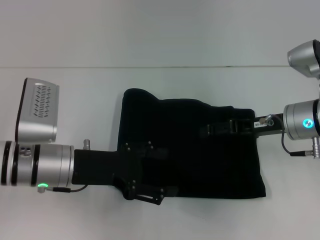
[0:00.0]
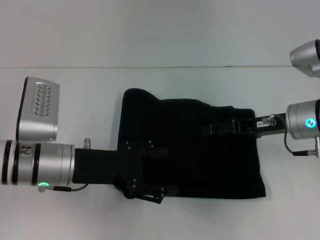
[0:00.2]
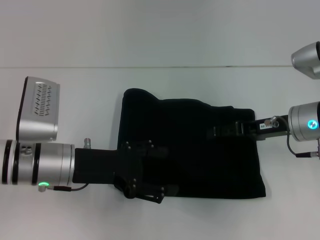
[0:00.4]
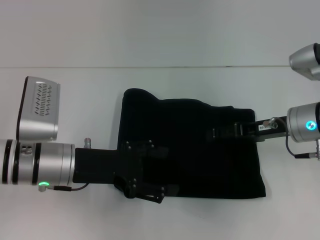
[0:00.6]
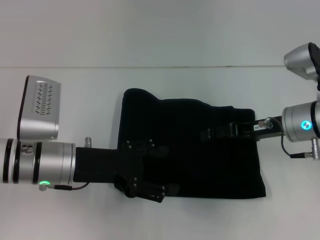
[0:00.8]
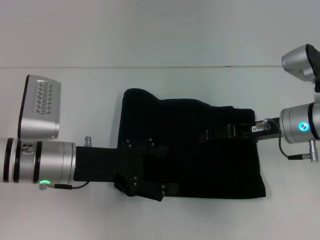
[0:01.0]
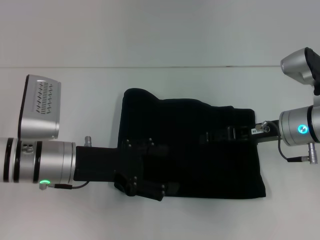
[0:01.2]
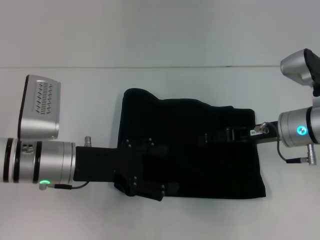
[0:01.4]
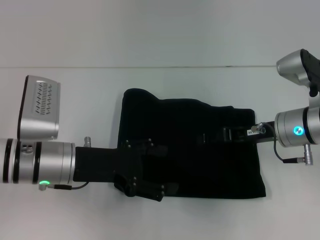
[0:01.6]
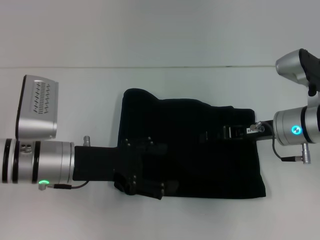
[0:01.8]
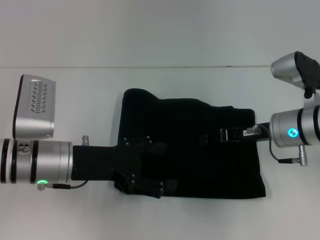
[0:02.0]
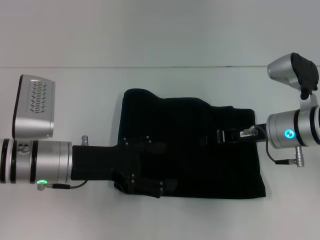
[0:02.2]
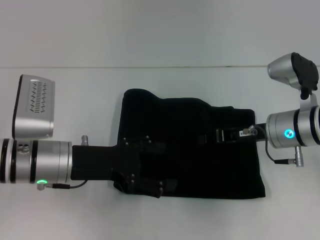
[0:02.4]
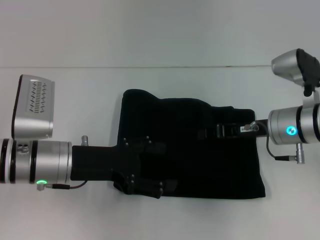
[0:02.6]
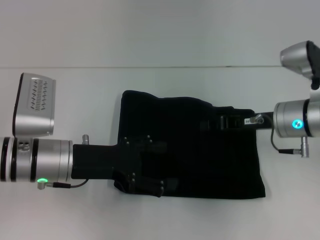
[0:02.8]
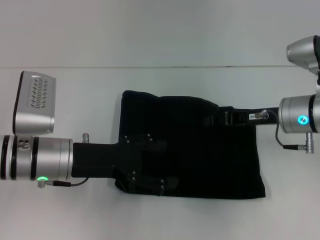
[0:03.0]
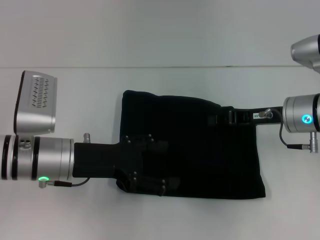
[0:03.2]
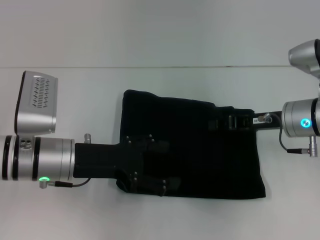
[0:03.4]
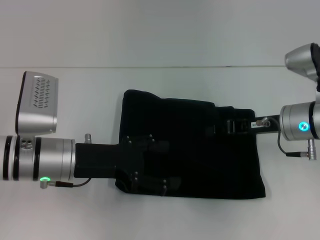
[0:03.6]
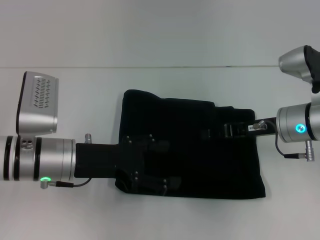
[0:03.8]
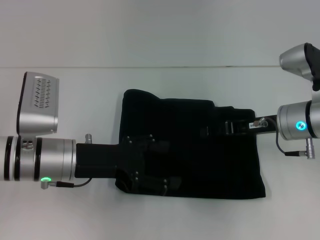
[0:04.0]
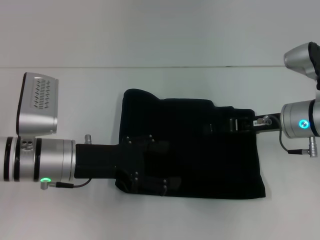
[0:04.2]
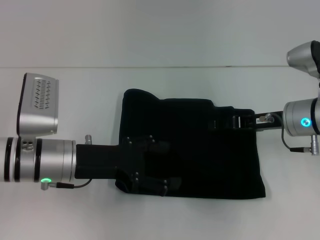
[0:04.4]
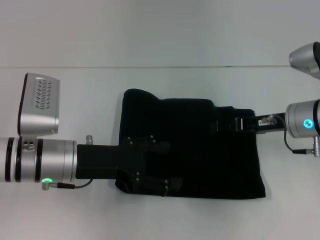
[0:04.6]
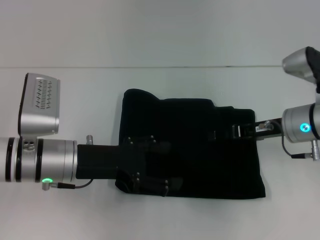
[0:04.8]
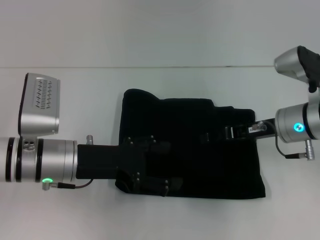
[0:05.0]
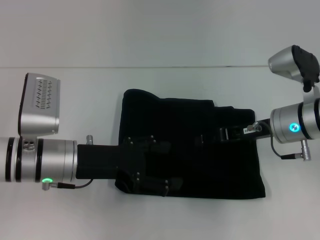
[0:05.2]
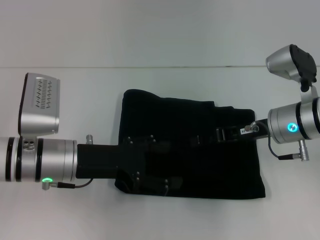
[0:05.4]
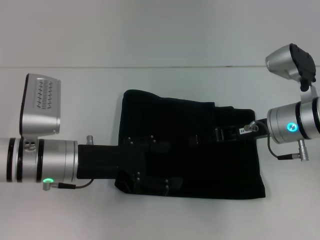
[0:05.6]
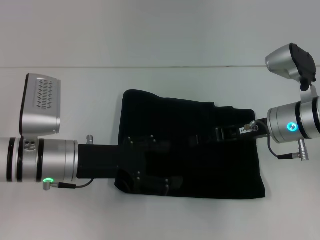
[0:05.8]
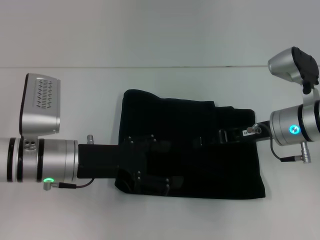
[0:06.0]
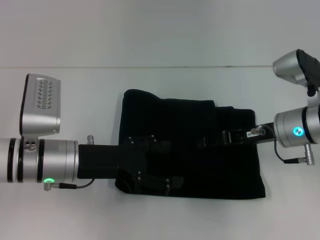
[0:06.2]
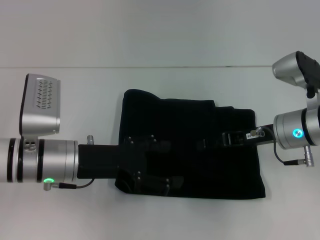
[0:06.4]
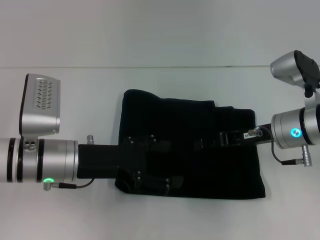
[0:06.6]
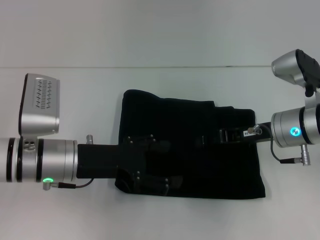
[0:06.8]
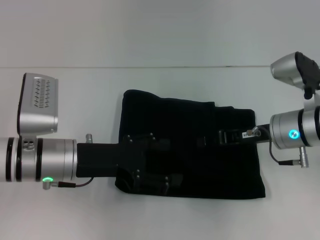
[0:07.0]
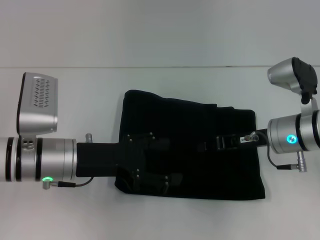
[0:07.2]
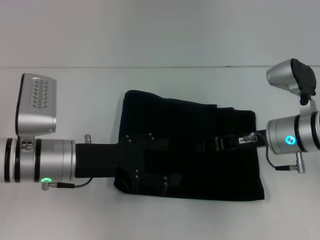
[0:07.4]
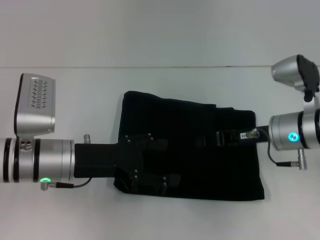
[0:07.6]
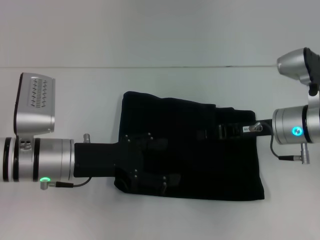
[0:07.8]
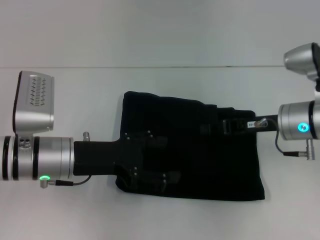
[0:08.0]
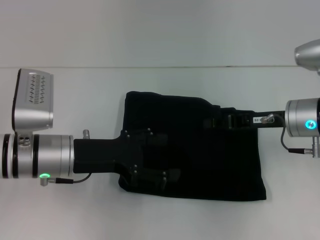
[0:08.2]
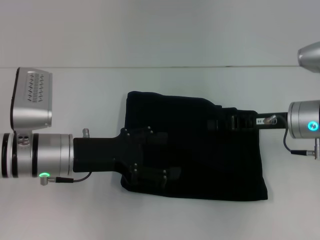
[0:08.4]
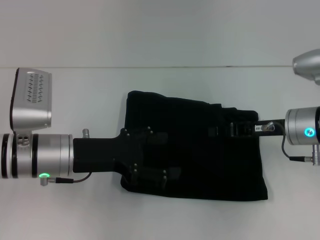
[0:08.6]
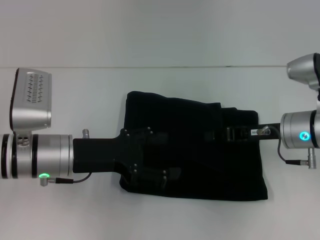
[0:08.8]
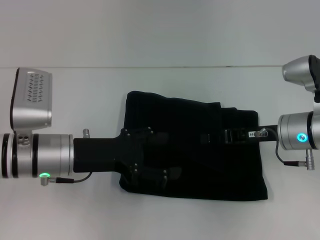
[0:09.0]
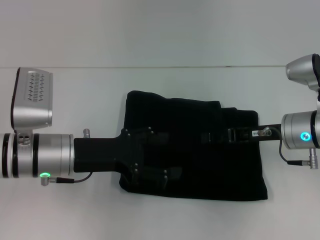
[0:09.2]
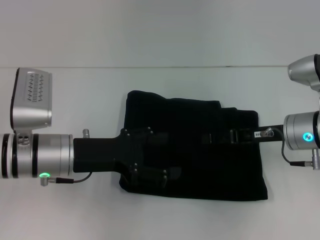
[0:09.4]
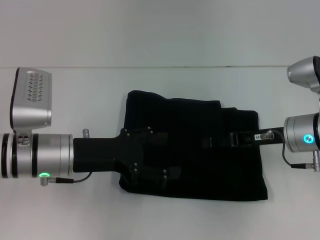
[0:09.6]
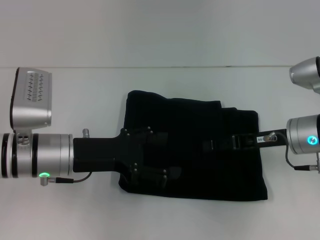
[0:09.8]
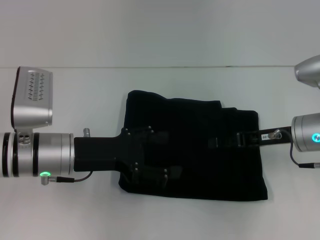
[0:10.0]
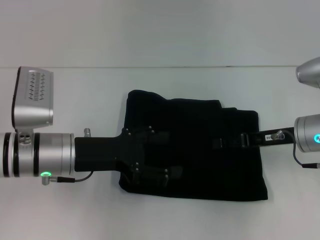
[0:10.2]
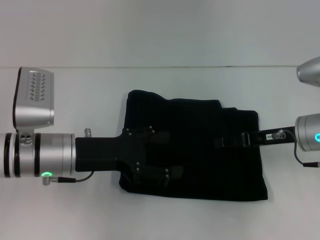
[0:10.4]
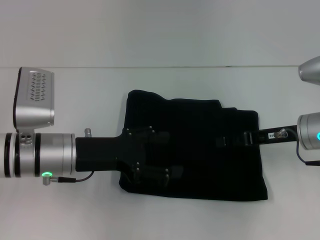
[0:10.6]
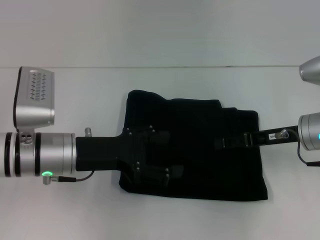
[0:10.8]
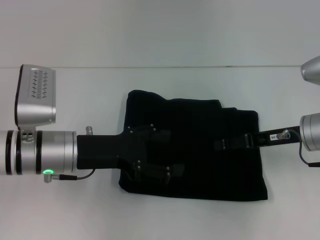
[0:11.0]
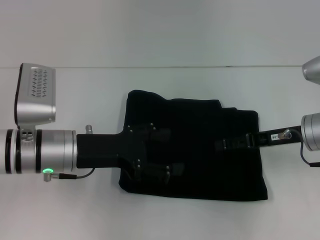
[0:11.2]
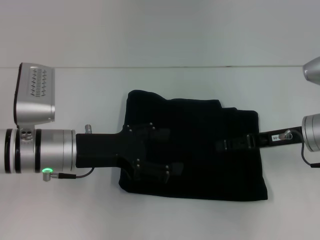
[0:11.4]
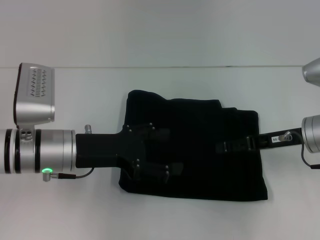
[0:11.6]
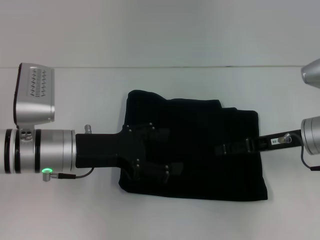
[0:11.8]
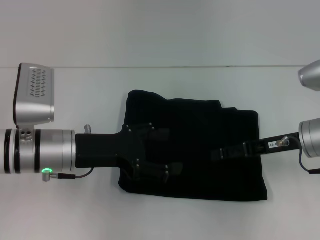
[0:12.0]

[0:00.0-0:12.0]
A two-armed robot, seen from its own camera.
0:00.0 to 0:01.6: The grippers stay close to where they were, moving slightly.
0:01.6 to 0:03.0: The right gripper closes up.
0:03.0 to 0:04.4: The right gripper opens up.
0:04.4 to 0:06.0: The grippers make only small movements.
0:06.0 to 0:07.6: The right gripper closes up.
0:07.6 to 0:09.0: The grippers stay close to where they were, moving slightly.
0:09.0 to 0:10.4: The right gripper opens.
0:10.4 to 0:12.0: There are only small adjustments of the grippers.

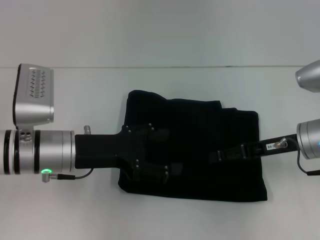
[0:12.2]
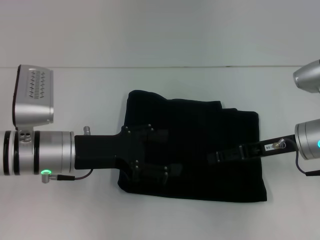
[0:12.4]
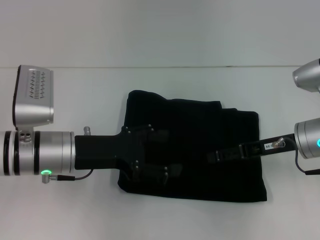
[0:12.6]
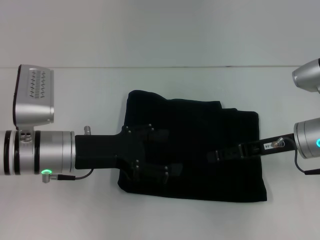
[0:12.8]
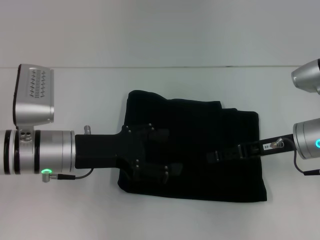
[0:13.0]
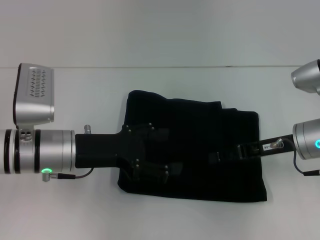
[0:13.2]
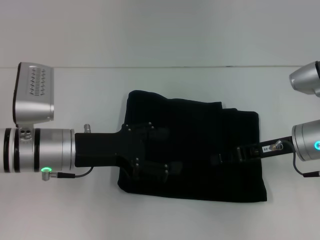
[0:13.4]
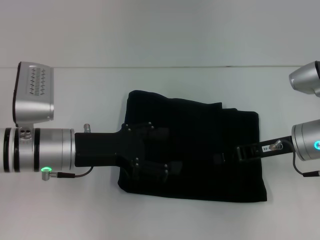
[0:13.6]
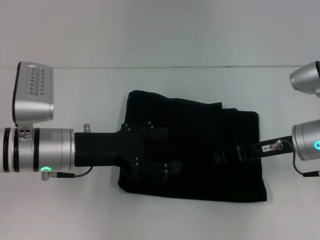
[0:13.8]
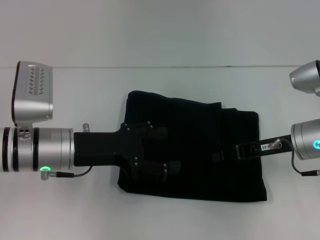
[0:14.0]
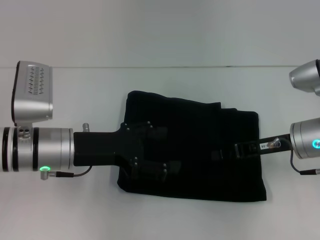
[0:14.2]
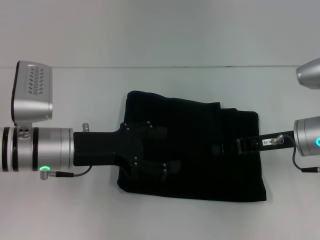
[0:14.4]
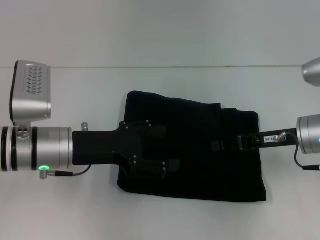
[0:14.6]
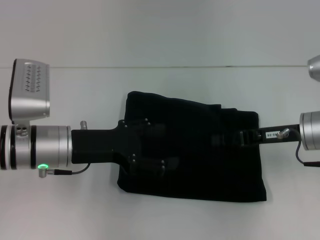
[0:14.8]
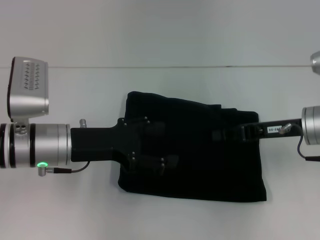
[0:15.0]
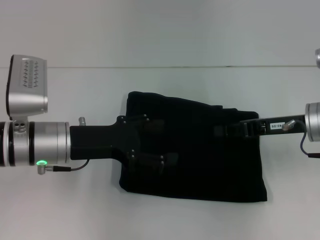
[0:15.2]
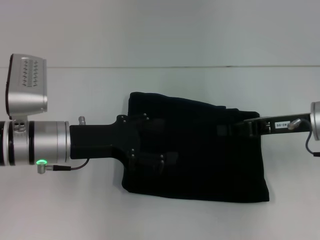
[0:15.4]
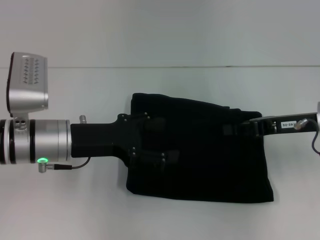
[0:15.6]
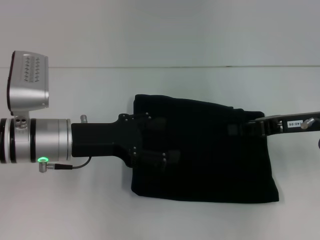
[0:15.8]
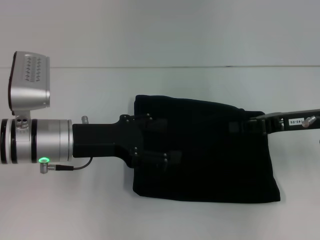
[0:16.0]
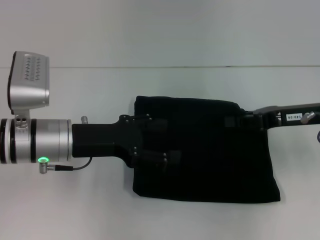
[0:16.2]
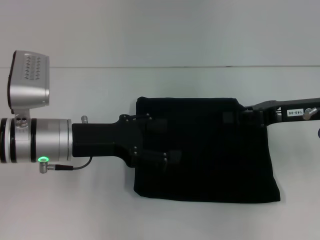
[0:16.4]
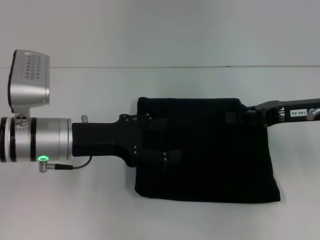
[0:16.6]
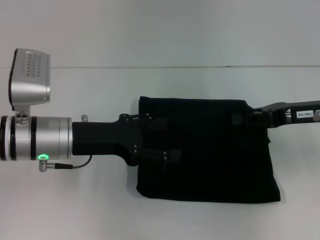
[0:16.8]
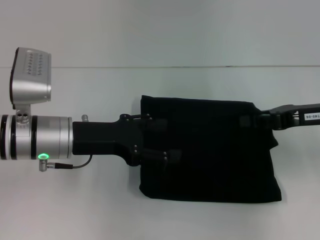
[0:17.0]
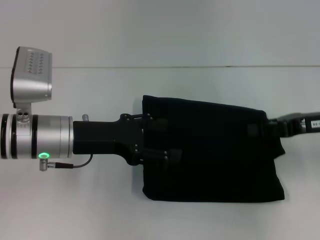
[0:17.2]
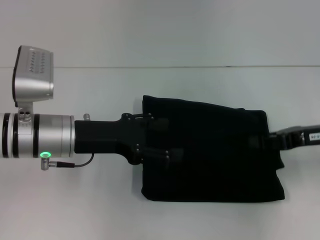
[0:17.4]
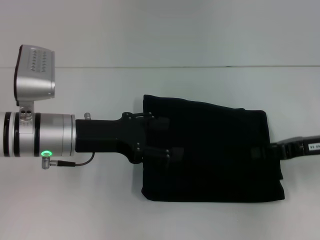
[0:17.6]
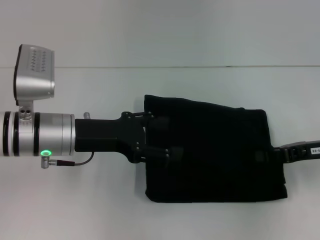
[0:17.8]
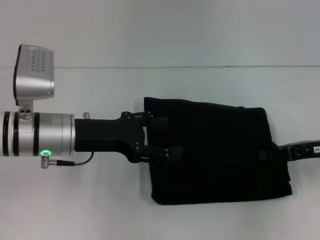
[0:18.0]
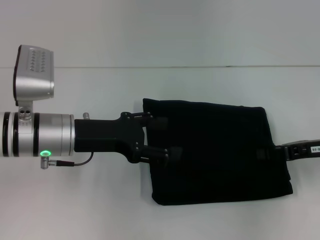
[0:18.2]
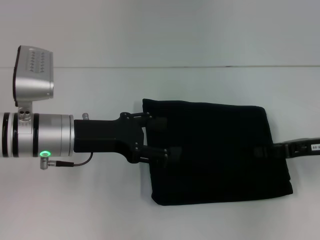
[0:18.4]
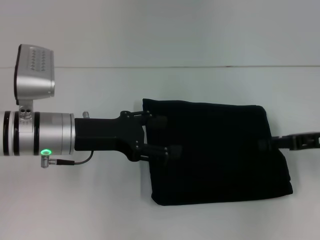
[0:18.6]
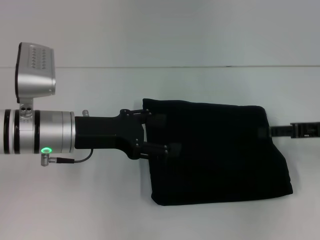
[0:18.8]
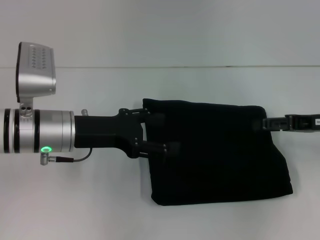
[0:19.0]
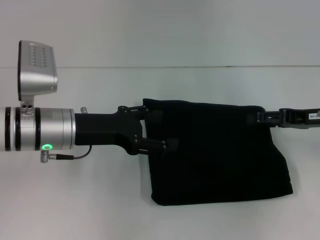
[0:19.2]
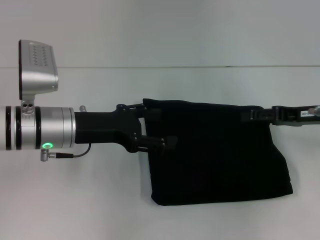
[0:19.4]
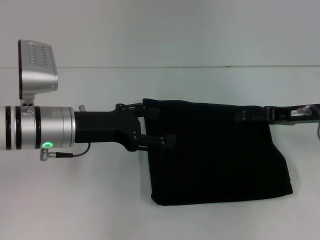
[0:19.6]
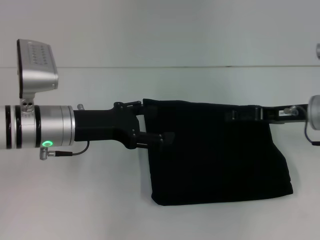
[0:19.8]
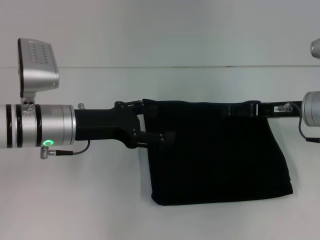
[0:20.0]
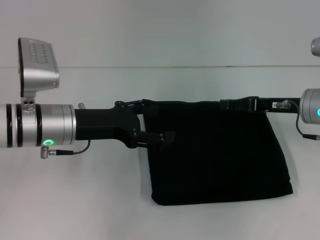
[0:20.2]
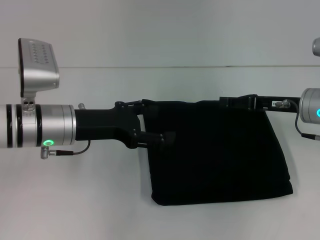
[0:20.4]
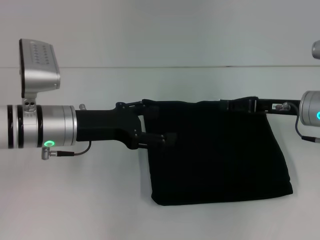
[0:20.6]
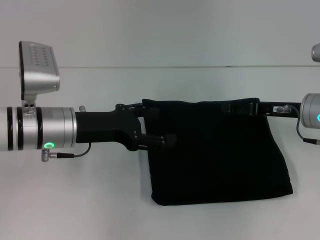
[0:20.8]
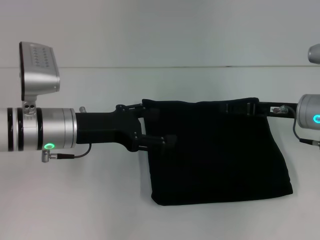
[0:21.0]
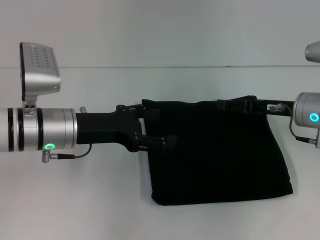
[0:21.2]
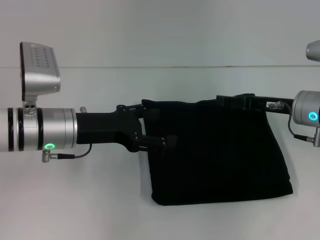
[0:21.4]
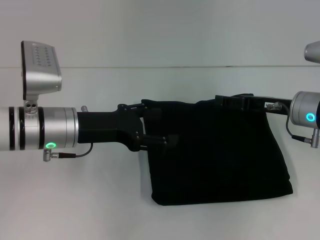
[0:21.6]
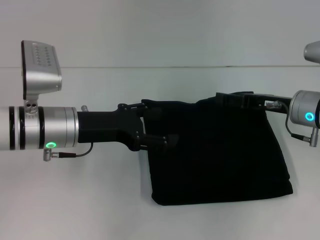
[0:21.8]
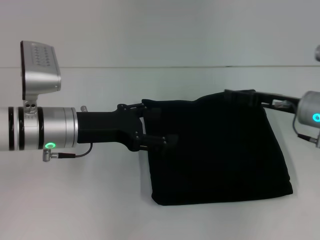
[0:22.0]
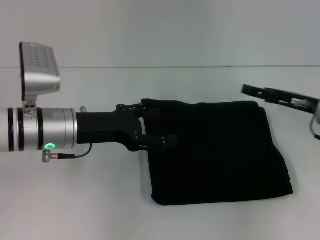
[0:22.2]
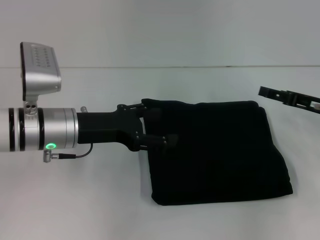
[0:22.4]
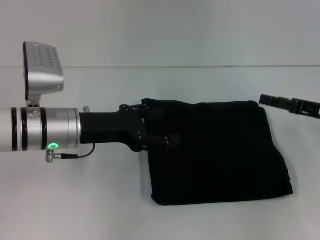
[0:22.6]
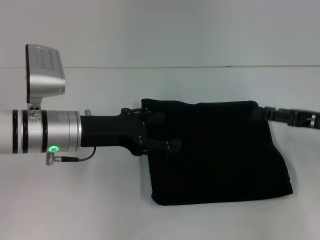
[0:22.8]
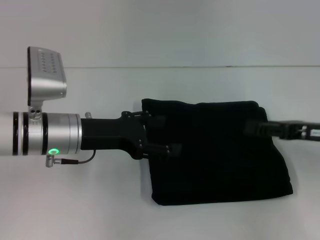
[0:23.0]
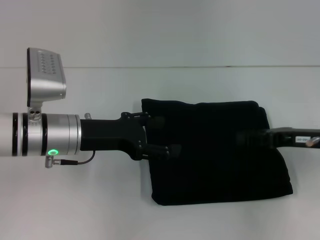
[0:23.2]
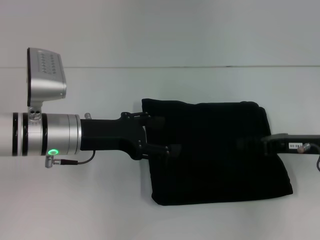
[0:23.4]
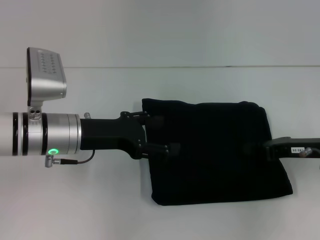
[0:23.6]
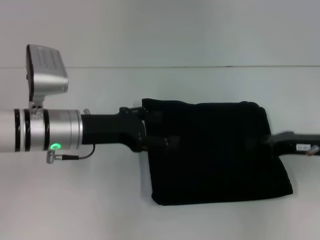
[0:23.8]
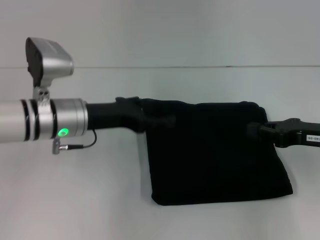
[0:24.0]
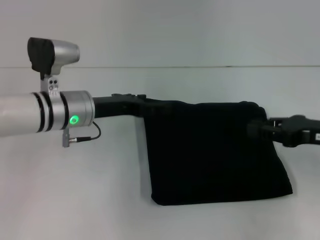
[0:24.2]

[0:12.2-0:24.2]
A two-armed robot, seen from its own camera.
0:12.2 to 0:13.8: The right gripper closes its fingers.
0:13.8 to 0:15.2: There are only small adjustments of the grippers.
0:15.2 to 0:16.6: There are only small adjustments of the grippers.
0:16.6 to 0:18.2: The right gripper is displaced downward by approximately 5 cm.
0:18.2 to 0:19.8: The right gripper moves approximately 5 cm, and opens.
0:19.8 to 0:21.2: The grippers make only small movements.
0:21.2 to 0:22.6: The right gripper goes roughly 5 cm to the right.
0:22.6 to 0:24.2: The right gripper closes.
